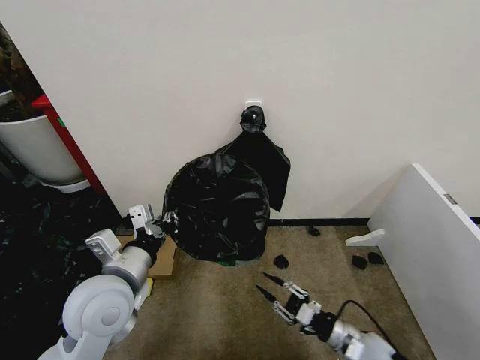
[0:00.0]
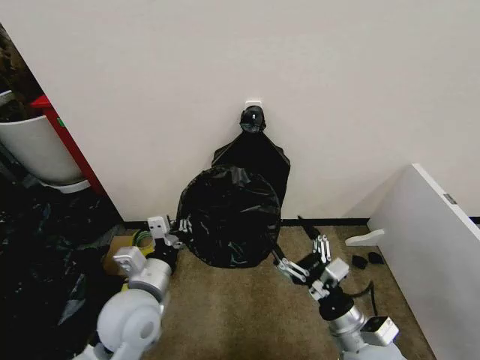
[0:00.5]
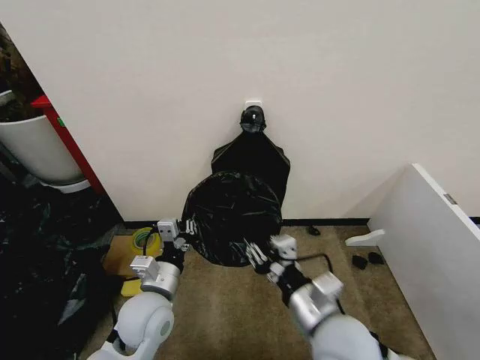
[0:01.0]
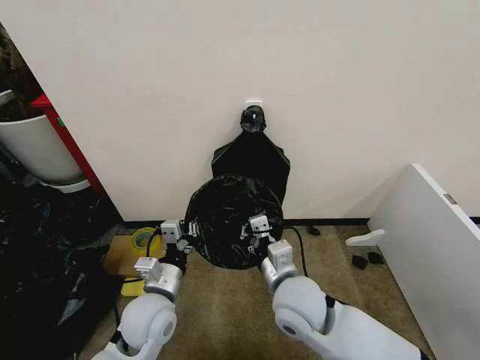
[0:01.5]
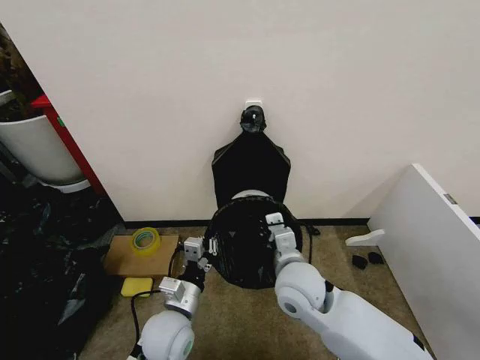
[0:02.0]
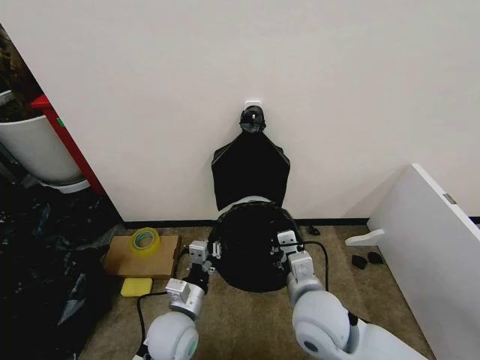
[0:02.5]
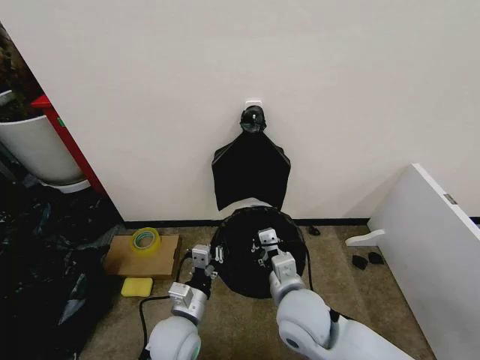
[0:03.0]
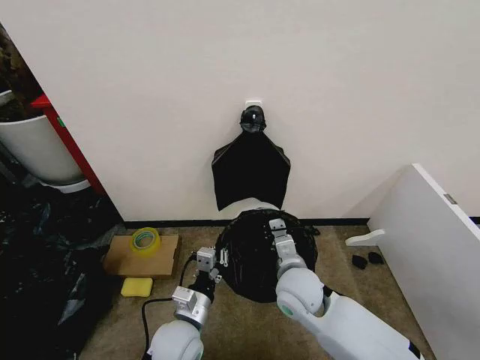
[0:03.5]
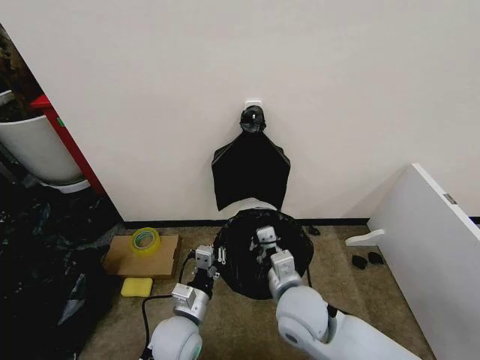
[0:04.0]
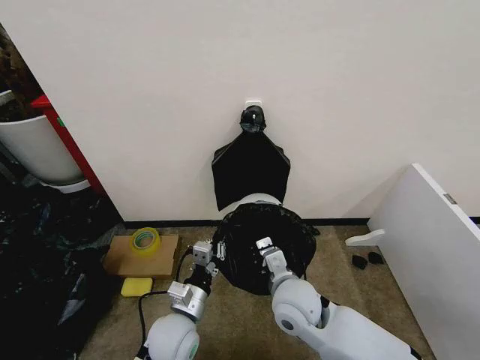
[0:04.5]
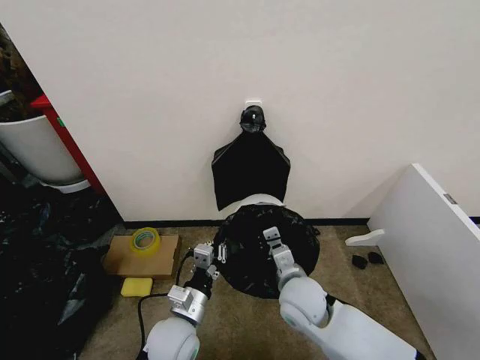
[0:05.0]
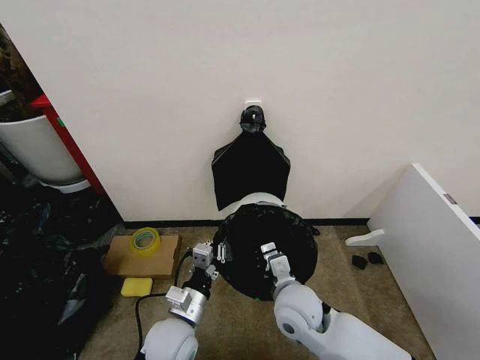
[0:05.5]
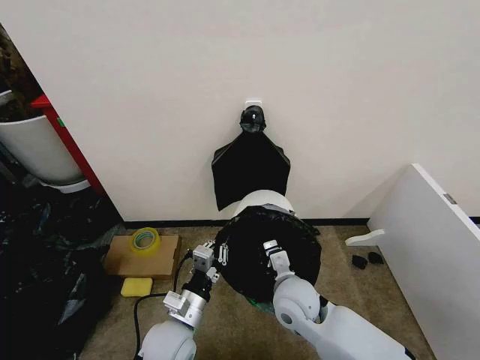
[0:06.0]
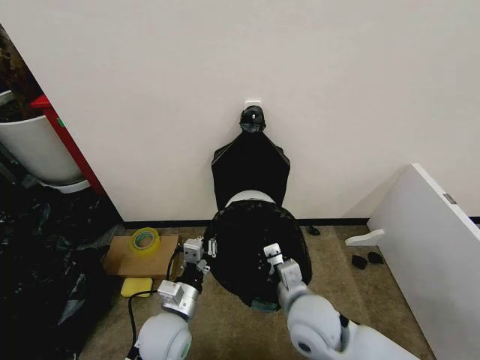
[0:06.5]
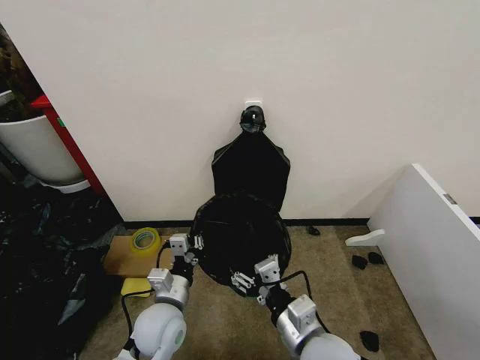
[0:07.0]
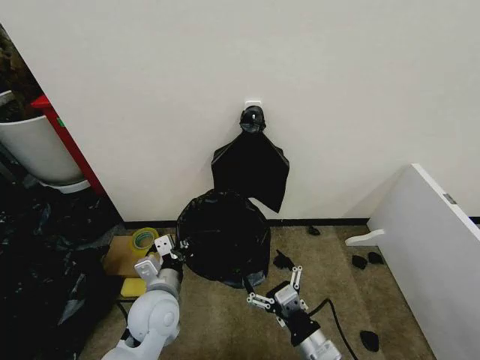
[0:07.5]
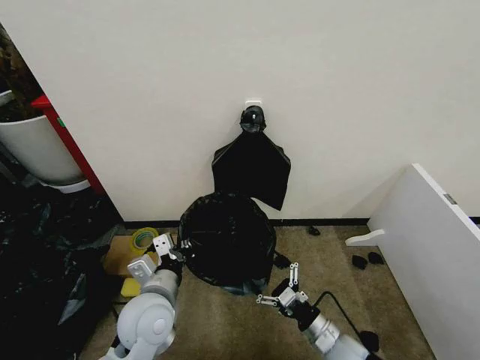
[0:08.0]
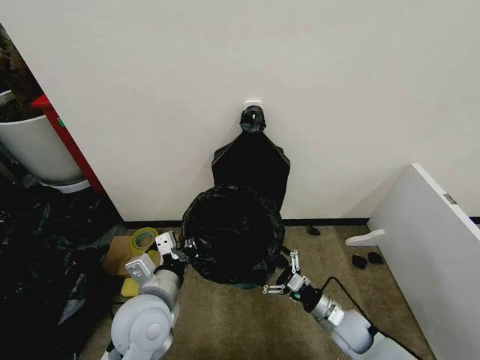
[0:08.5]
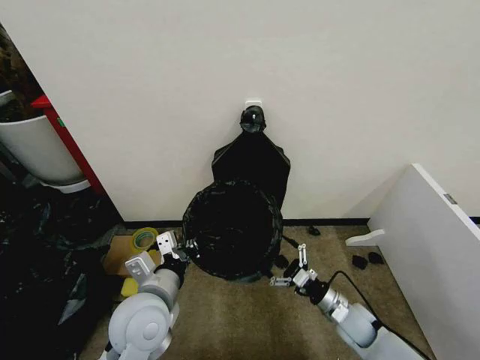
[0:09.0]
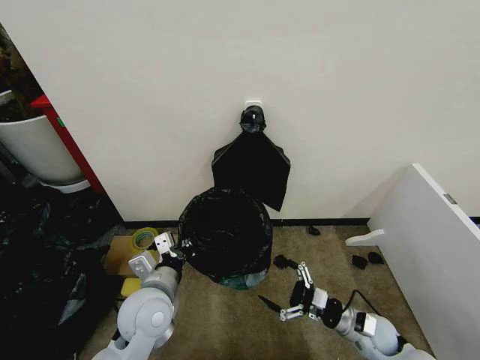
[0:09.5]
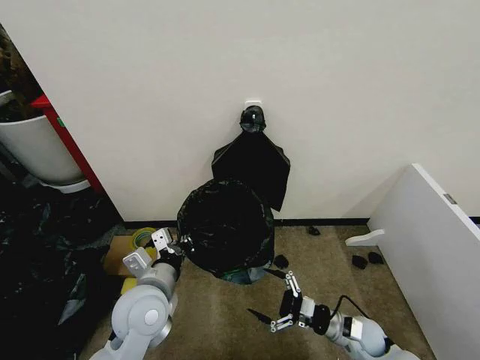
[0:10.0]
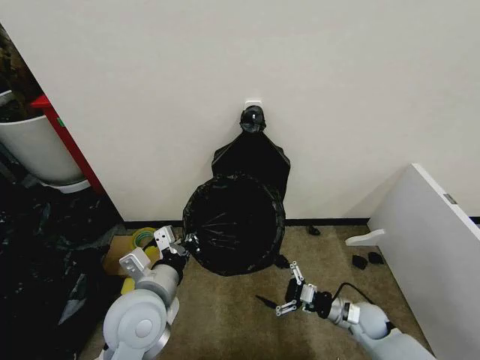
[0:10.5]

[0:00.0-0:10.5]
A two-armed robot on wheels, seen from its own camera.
Task of the whole recording: Place the garbage bag over the trash bin.
0:00.0 to 0:02.0: The left gripper moves downward and to the right, approximately 15 cm; the right gripper travels upward, to the left and forward by roughly 30 cm, and opens, then closes once more.
0:02.0 to 0:04.0: The right gripper goes forward and backward, approximately 5 cm each way, reversing 2 times.
0:06.5 to 0:08.5: The left gripper shifts roughly 10 cm upward. The right gripper is displaced downward and to the right by roughly 20 cm, and opens up.
0:08.5 to 0:10.5: The right gripper shifts some 5 cm to the right.

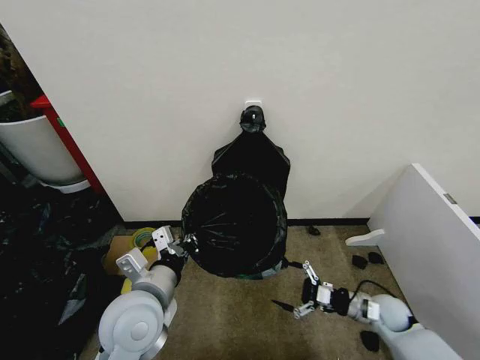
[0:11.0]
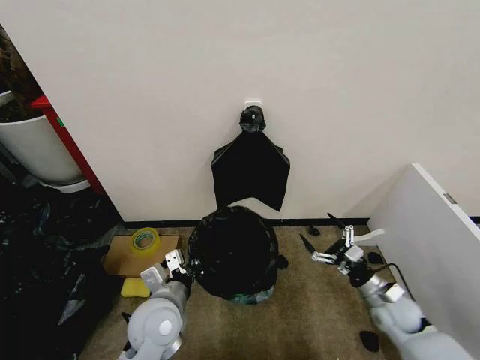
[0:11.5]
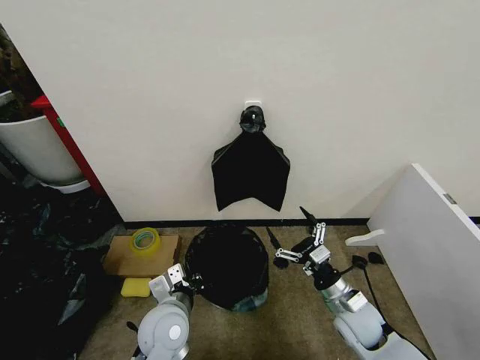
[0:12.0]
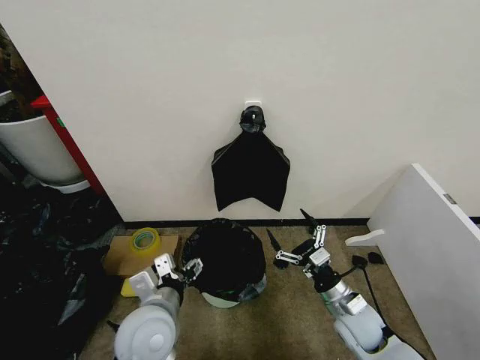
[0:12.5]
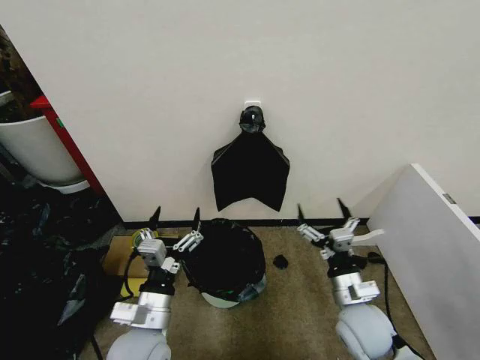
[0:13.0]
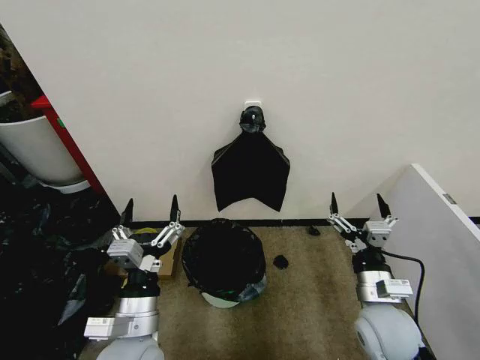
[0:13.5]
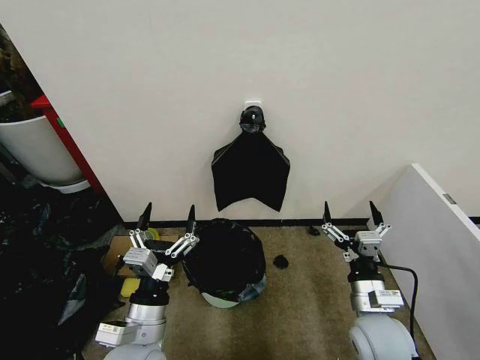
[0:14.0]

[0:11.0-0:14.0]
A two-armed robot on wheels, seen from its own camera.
Task of the whole recording: Place the garbage bag over the trash bin.
0:11.0 to 0:12.5: The left gripper heads downward, covering about 5 cm, and opens up. Meanwhile the right gripper moves to the left and upward, roughly 15 cm.
0:12.5 to 0:14.0: The right gripper is displaced upward by roughly 10 cm. Meanwhile the left gripper changes place by some 5 cm.
